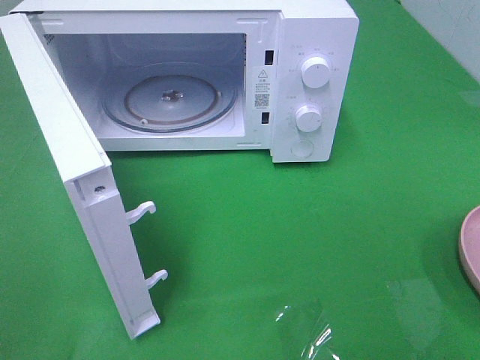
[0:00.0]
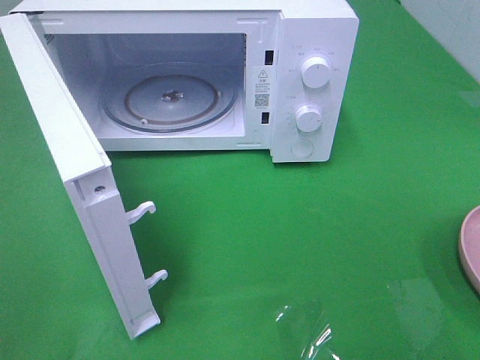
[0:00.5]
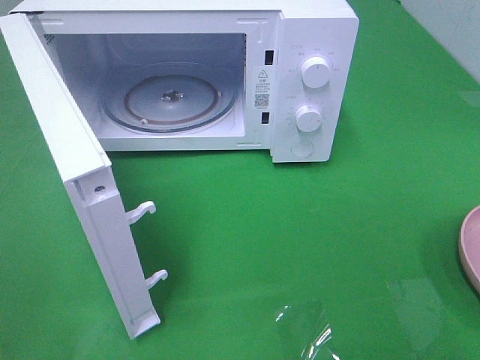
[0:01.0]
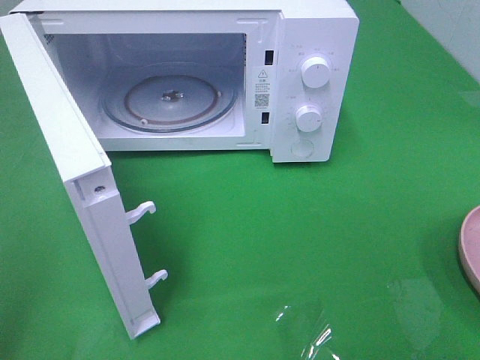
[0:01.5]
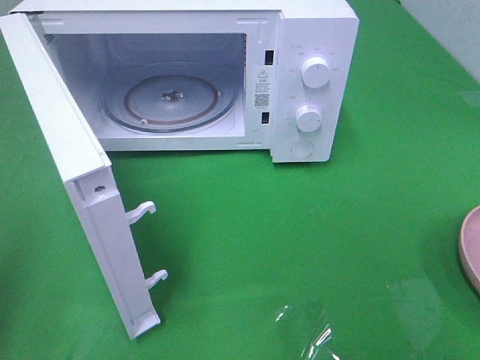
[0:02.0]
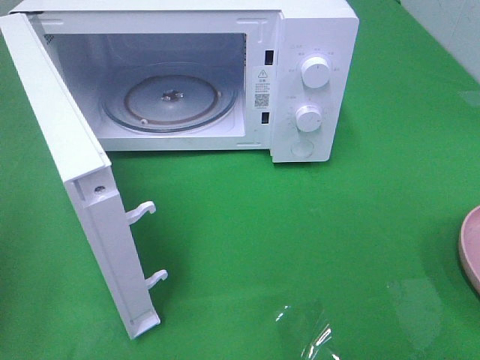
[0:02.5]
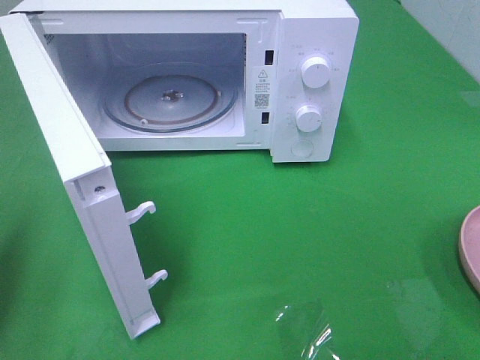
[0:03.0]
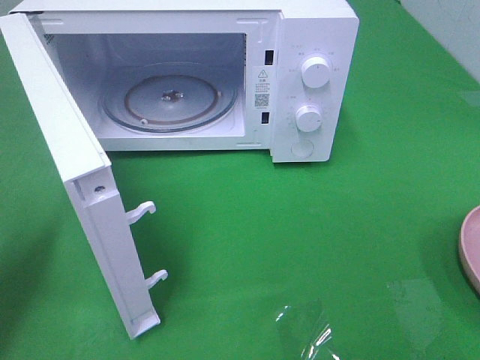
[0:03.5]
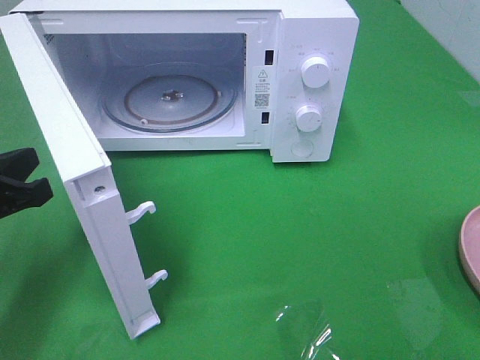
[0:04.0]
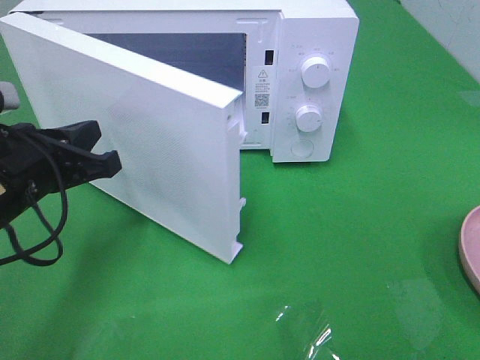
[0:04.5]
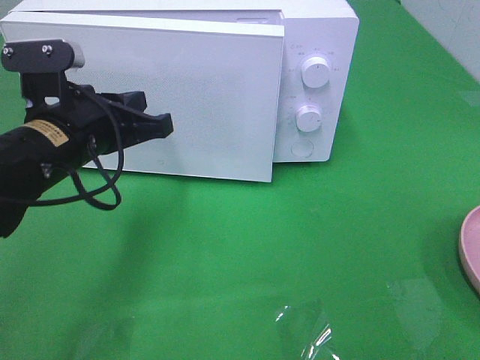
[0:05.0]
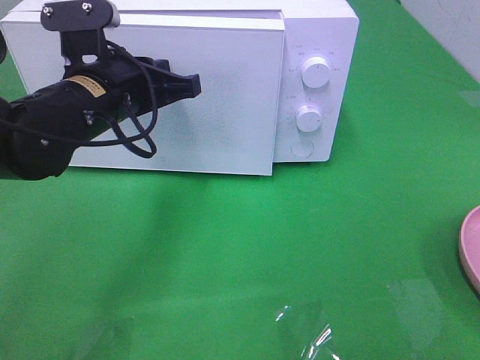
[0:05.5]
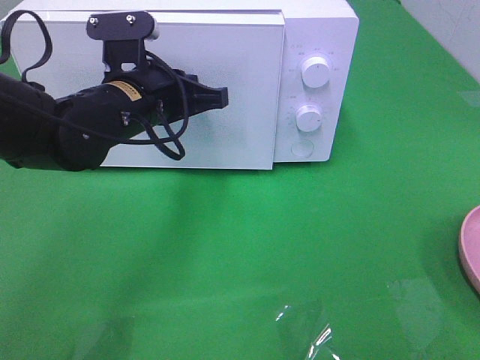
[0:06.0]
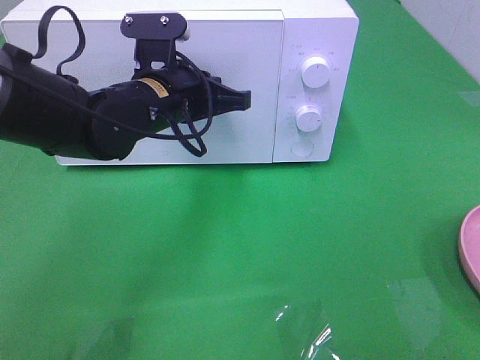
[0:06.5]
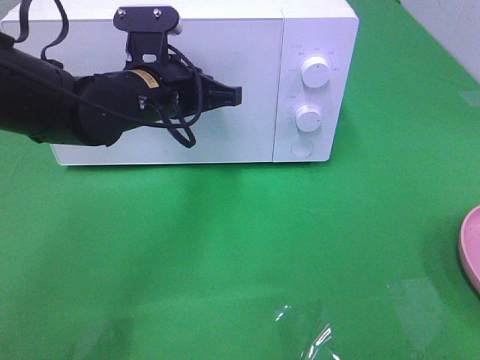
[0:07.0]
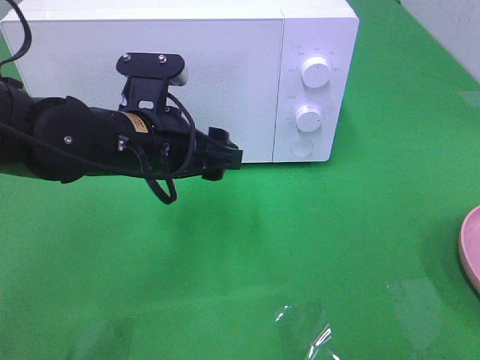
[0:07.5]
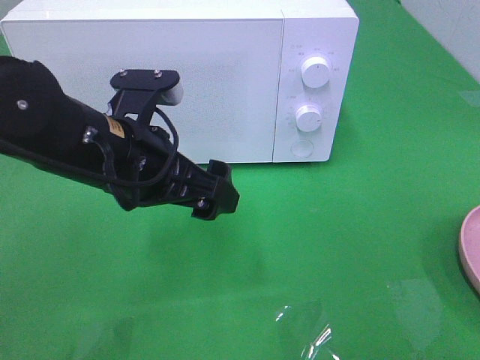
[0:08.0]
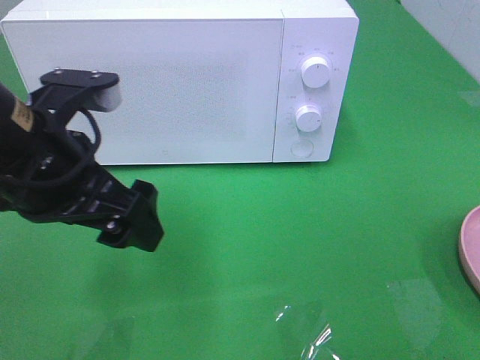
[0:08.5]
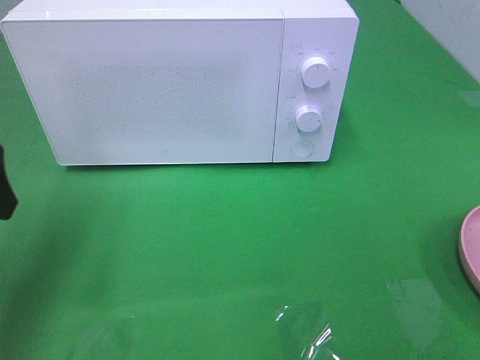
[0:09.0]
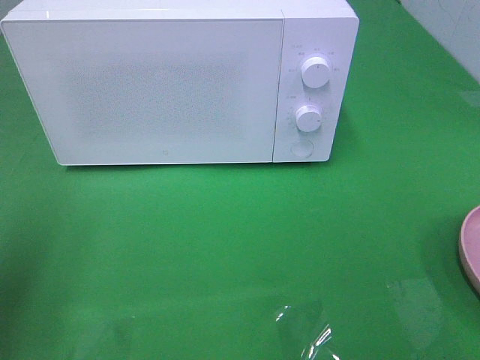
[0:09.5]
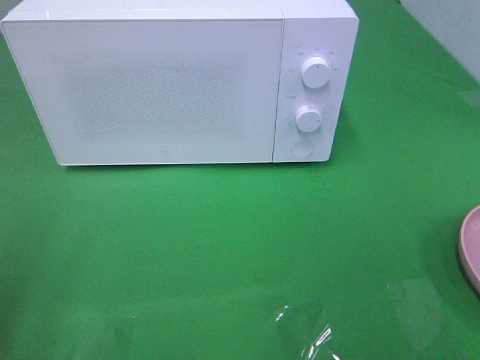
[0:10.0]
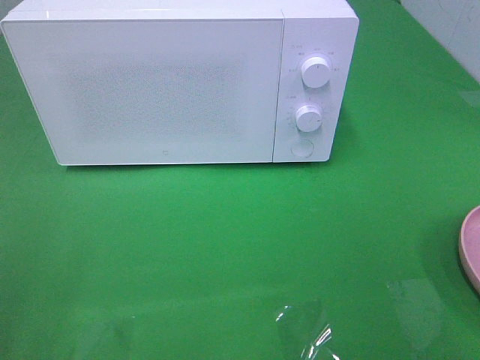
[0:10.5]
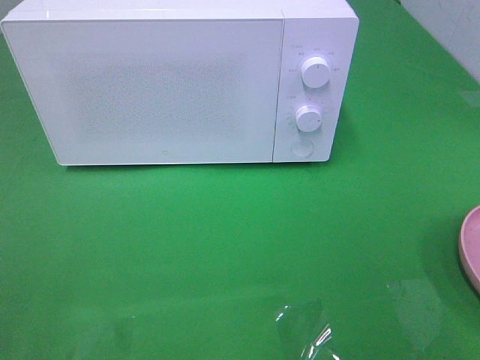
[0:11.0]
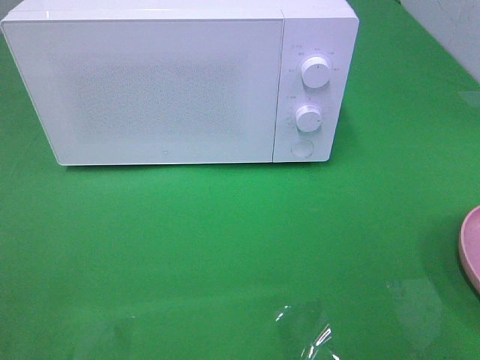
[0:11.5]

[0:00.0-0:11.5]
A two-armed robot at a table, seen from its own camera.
Task of the whole recording: Heat the burger.
Step, 0:00.0 to 0:07.0: Left hand: close the microwave door.
0:02.0 to 0:04.0: The left gripper heads downward, forward and to the right, covering approximately 15 cm.
0:04.0 to 0:06.0: The left gripper shifts approximately 20 cm to the right and forward.
0:06.0 to 0:07.5: The left gripper moves backward, roughly 5 cm, and opens.
0:07.5 to 0:09.5: The left gripper travels to the left and backward by some 25 cm.
0:09.5 to 0:11.5: The left gripper goes approximately 20 cm backward.

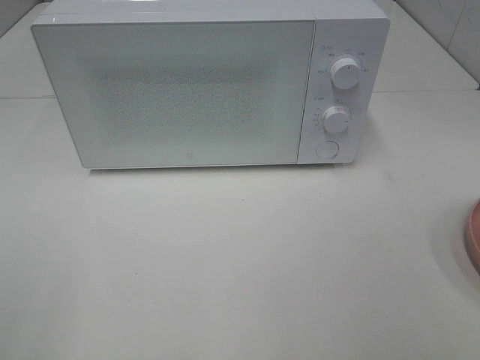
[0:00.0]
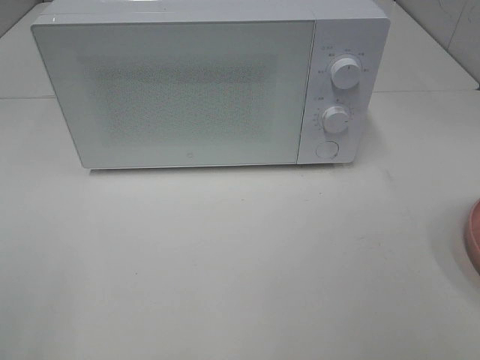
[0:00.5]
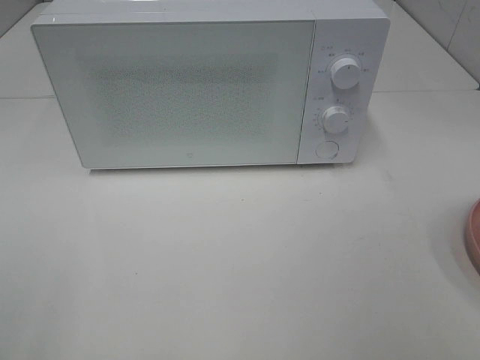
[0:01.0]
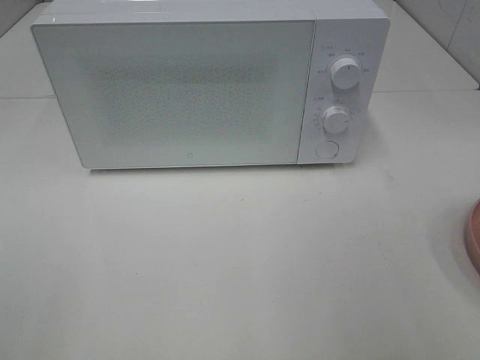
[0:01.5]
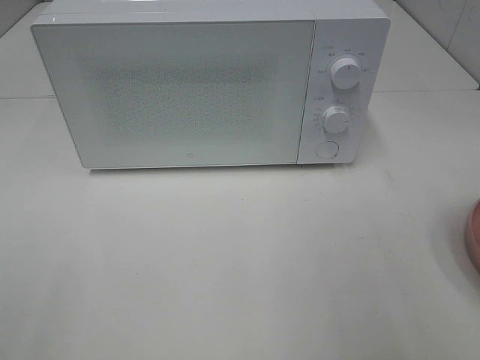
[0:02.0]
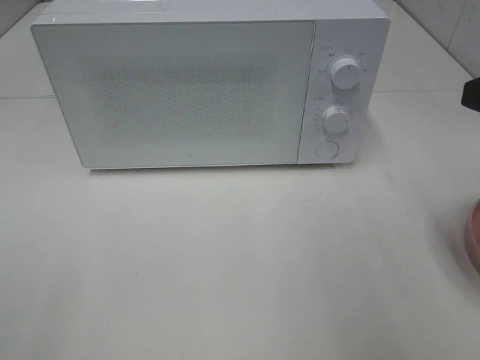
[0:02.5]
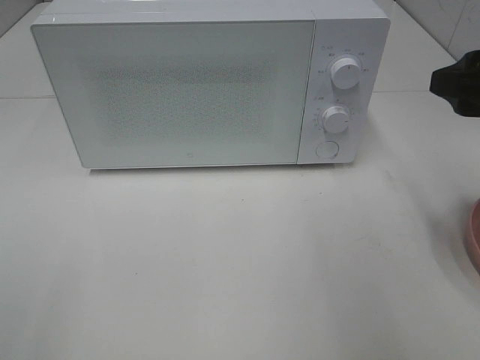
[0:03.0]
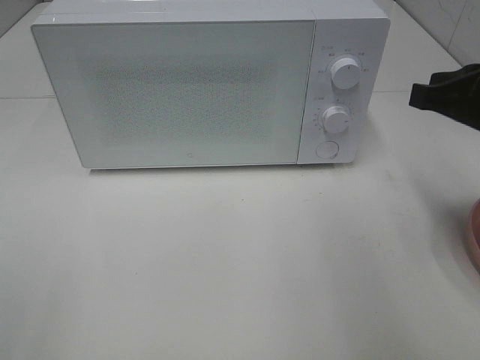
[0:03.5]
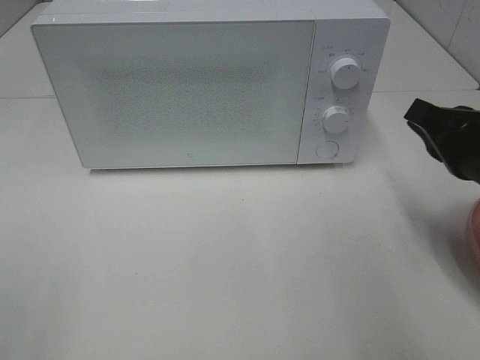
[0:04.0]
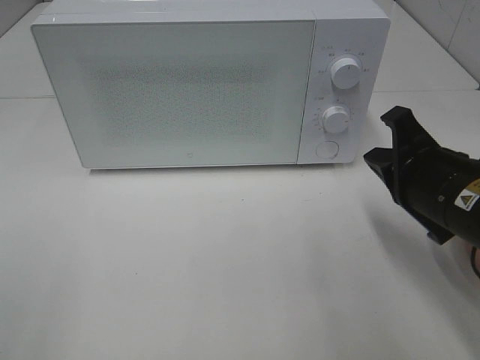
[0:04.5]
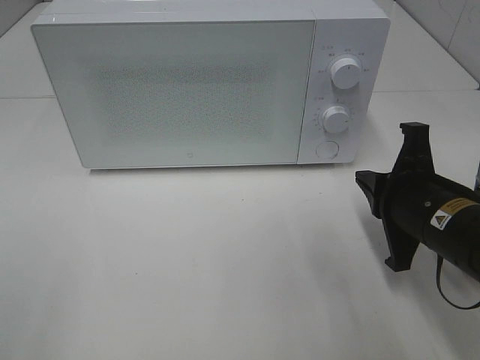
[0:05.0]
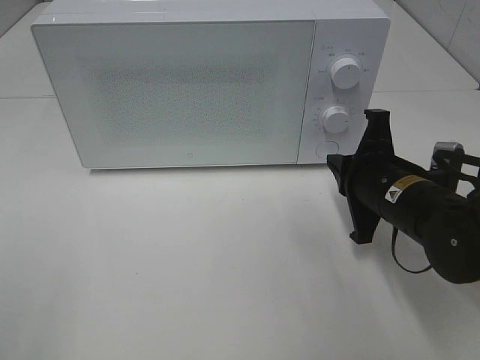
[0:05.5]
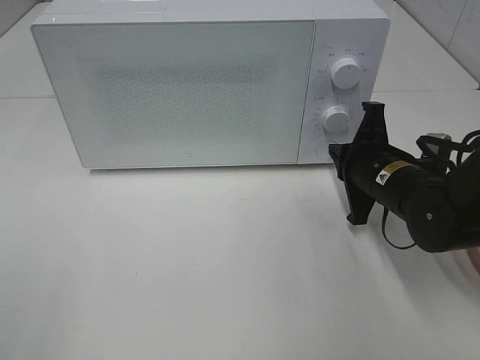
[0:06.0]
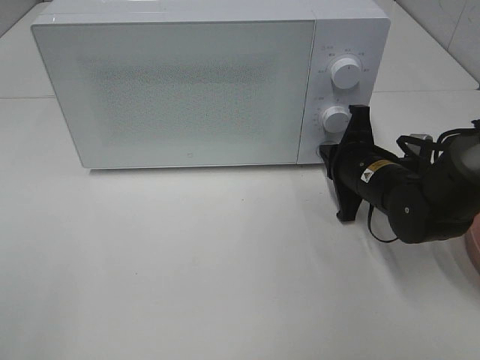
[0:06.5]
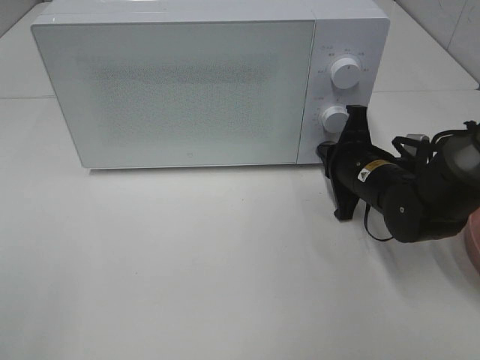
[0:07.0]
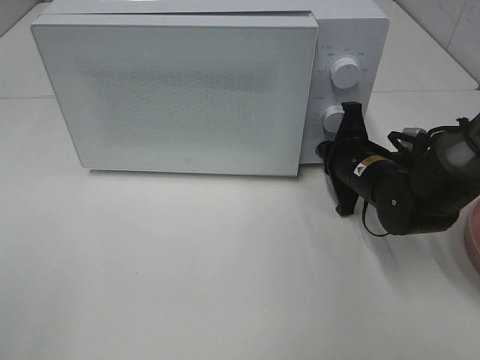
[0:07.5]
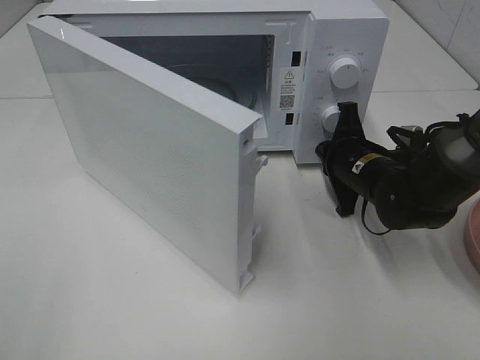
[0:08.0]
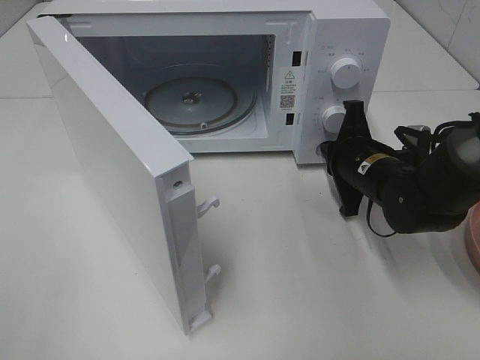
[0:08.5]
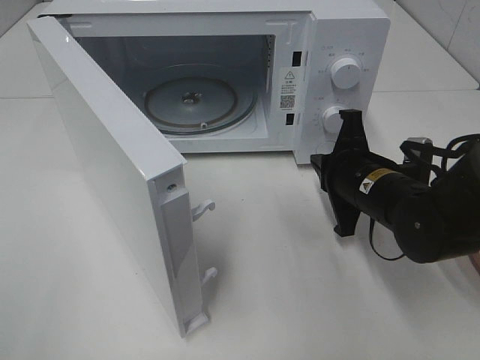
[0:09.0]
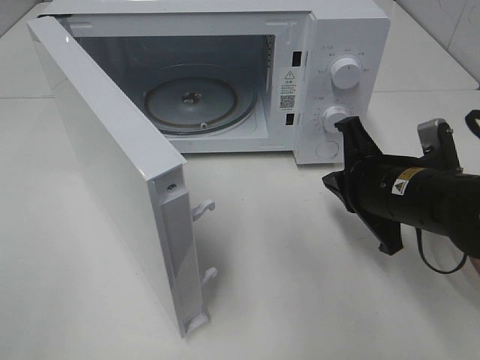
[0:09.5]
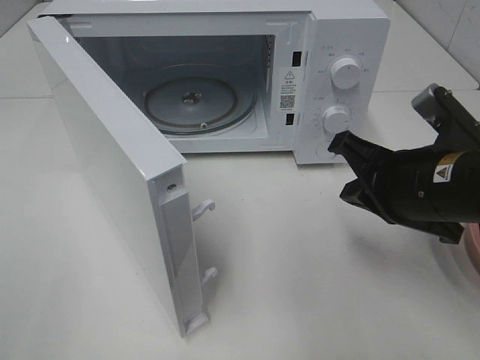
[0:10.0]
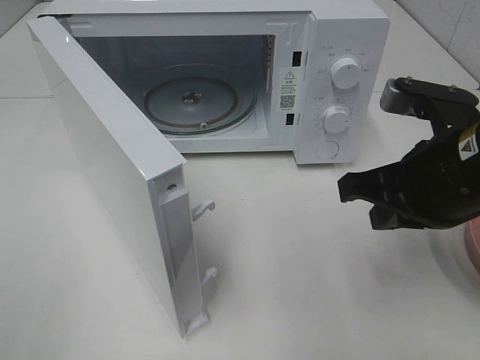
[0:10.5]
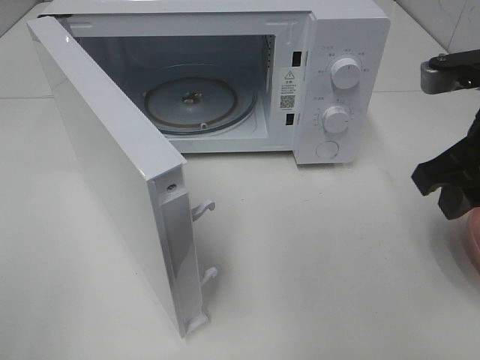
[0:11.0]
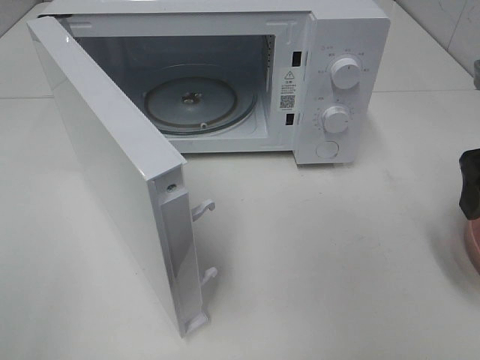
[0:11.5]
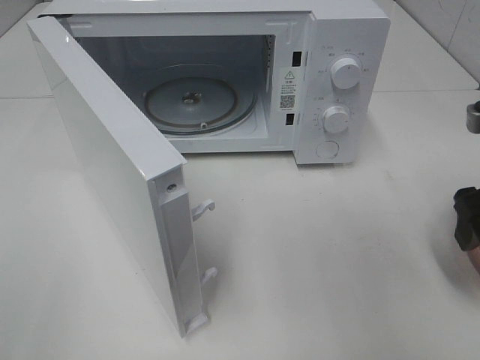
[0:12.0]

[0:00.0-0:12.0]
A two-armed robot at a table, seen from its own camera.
Task of the whole recording: Heat the burger.
Step, 0:00.0 to 0:08.5: Right hand: press the switch.
0:02.0 to 0:04.0: The right gripper heads downward and forward, covering about 15 cm, and closes its fingers.
0:04.0 to 0:06.0: The right gripper is displaced downward, forward and to the left by about 15 cm.
0:08.0 to 0:10.0: The right gripper shifts some 15 cm backward and upward.
0:10.0 to 0:12.0: The right gripper is displaced to the right by roughly 10 cm, and opens its fingers.

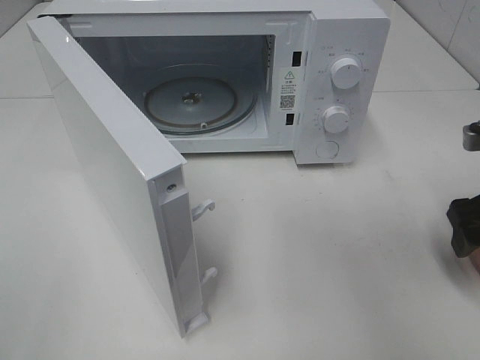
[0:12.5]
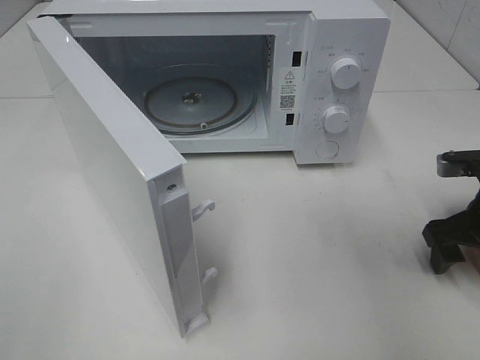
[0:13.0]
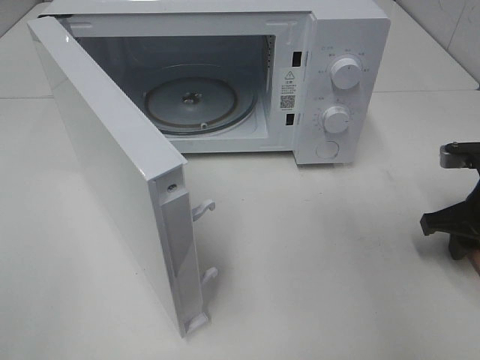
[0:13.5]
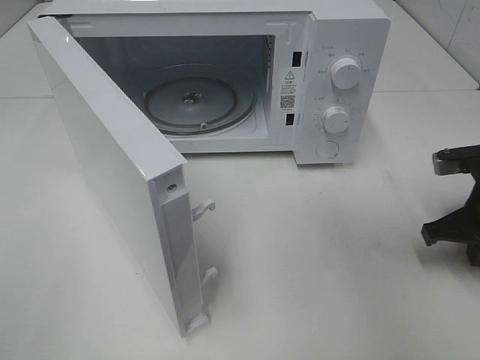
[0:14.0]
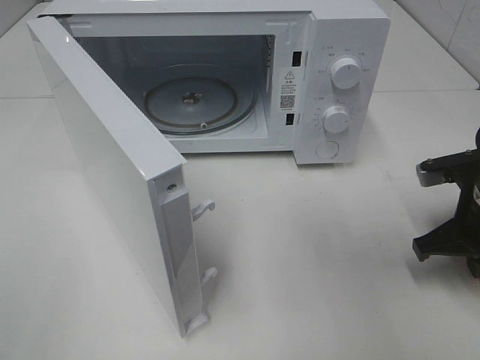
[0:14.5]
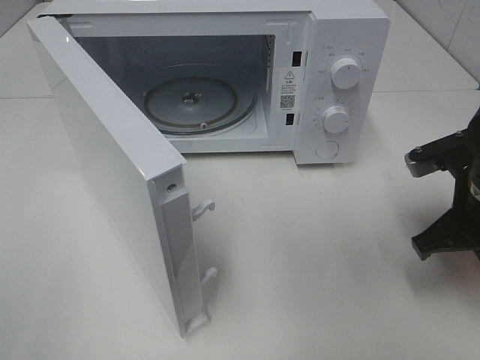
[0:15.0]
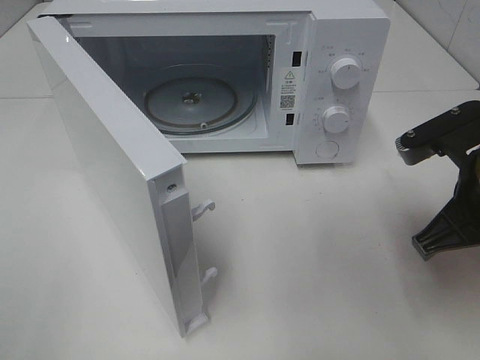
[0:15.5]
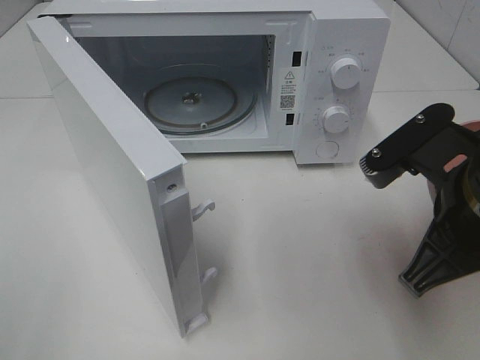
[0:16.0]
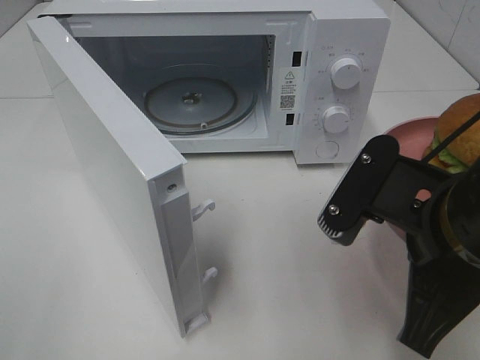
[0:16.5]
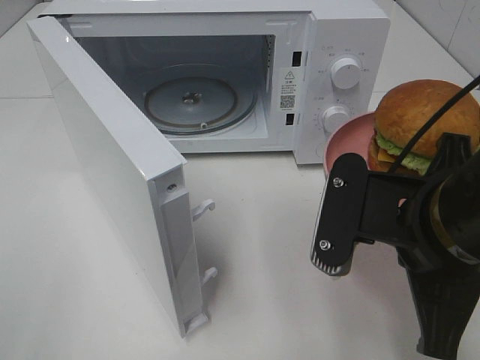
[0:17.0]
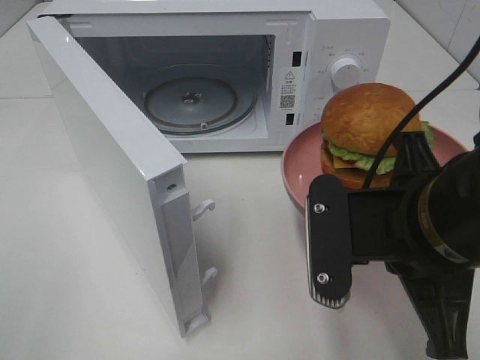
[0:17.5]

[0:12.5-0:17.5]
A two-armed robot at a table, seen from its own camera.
Task of the whole recording: Heat the burger.
0:12.5 to 0:15.0: The right gripper shifts some 5 cm to the left, and closes up.
0:15.0 to 0:17.5: The right gripper travels to the left, backward and upward by some 15 cm.
